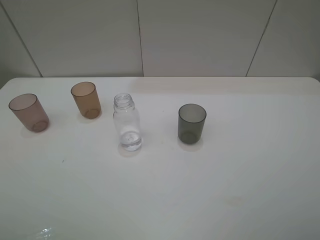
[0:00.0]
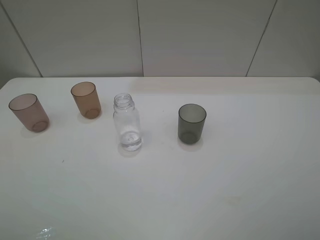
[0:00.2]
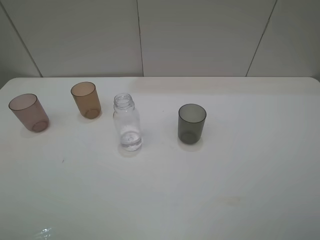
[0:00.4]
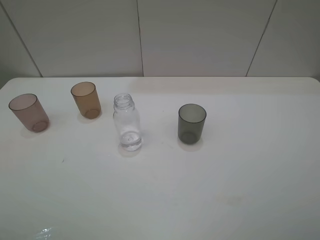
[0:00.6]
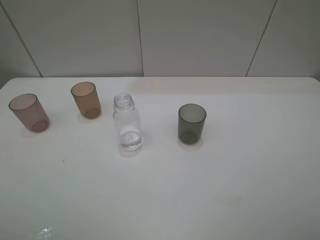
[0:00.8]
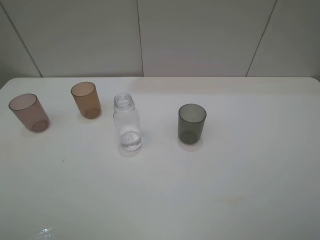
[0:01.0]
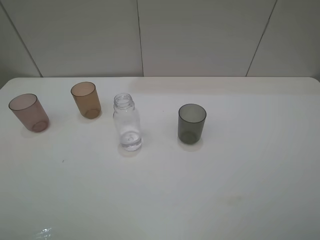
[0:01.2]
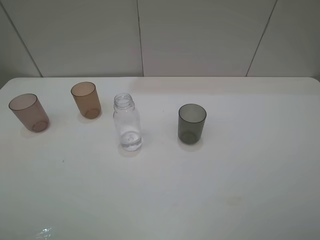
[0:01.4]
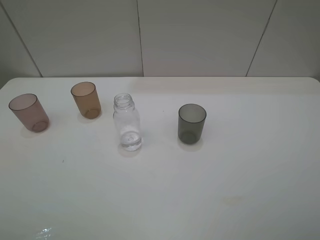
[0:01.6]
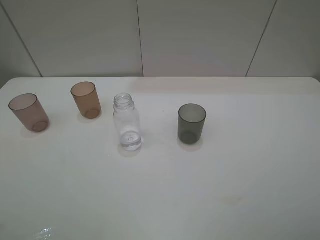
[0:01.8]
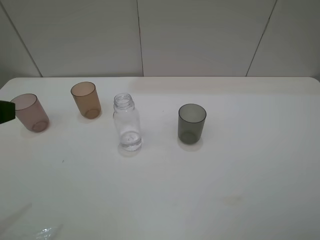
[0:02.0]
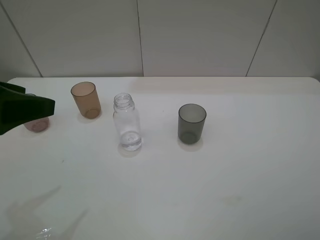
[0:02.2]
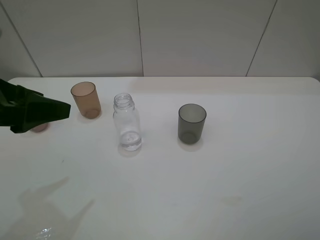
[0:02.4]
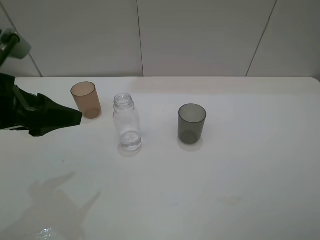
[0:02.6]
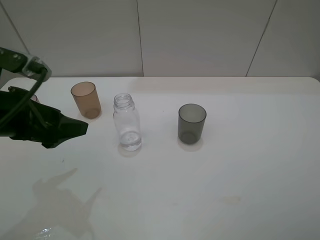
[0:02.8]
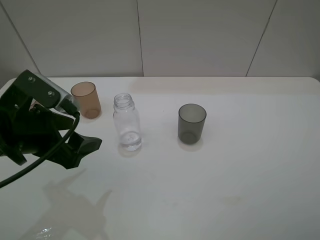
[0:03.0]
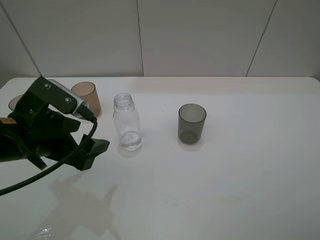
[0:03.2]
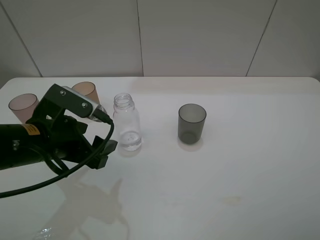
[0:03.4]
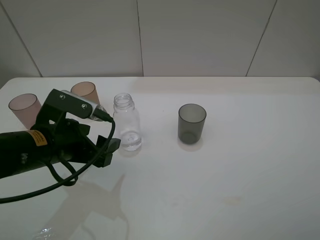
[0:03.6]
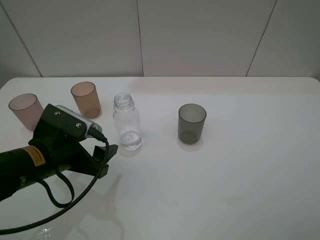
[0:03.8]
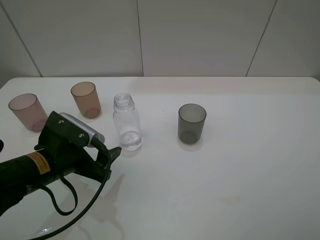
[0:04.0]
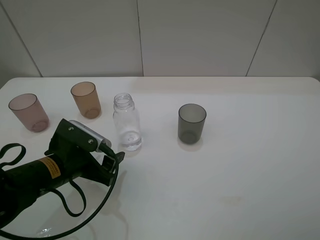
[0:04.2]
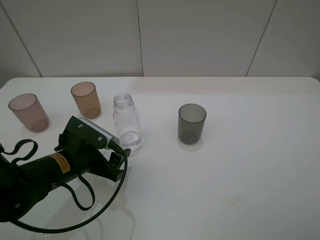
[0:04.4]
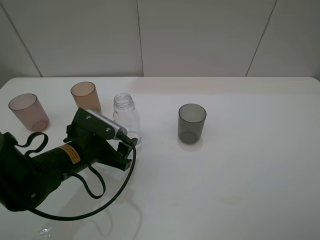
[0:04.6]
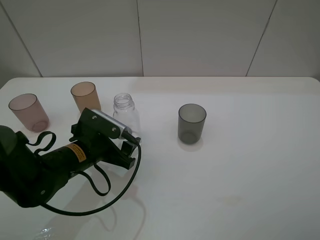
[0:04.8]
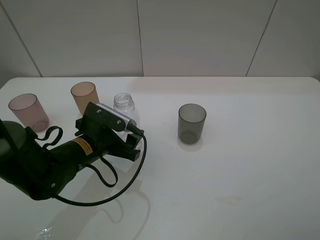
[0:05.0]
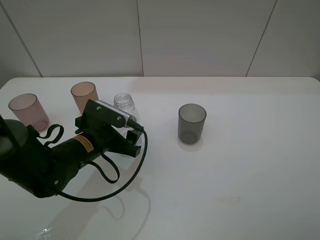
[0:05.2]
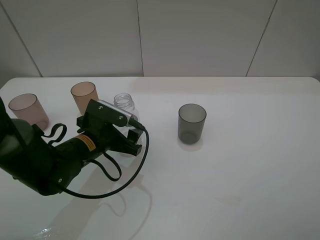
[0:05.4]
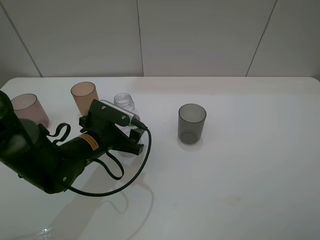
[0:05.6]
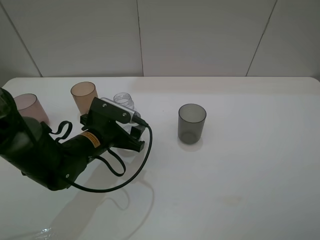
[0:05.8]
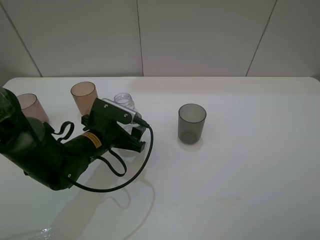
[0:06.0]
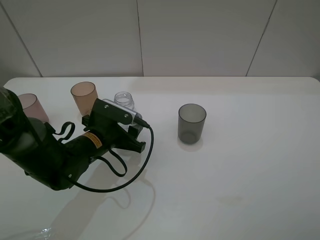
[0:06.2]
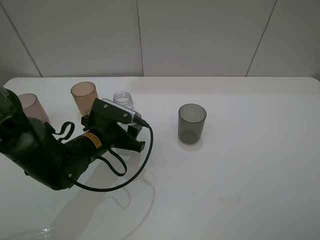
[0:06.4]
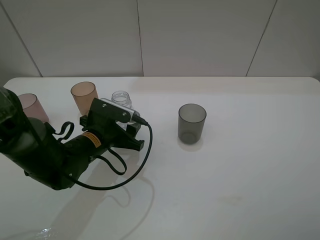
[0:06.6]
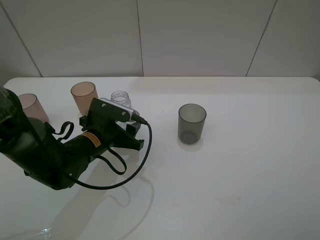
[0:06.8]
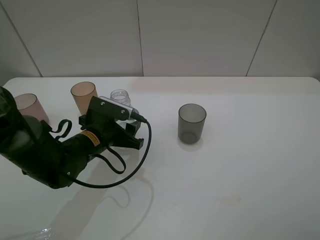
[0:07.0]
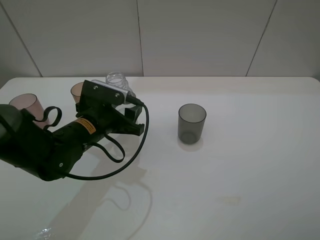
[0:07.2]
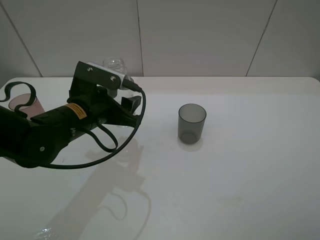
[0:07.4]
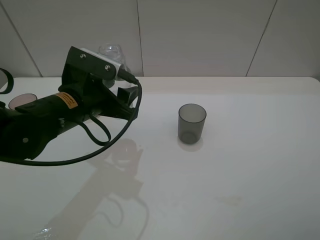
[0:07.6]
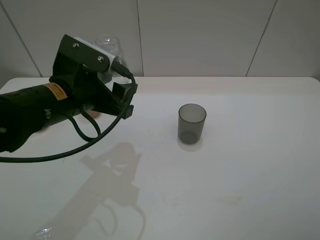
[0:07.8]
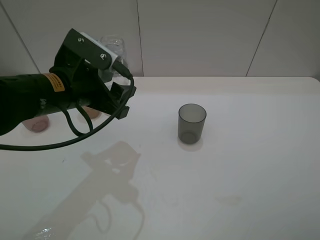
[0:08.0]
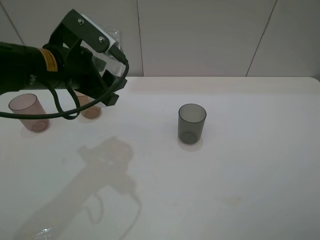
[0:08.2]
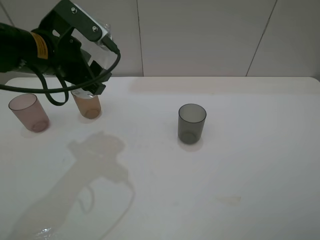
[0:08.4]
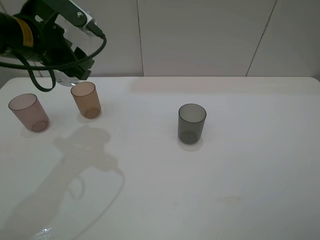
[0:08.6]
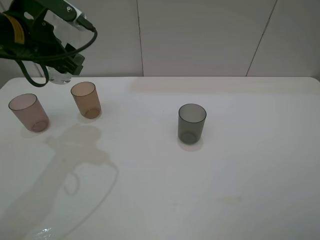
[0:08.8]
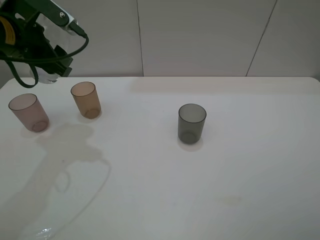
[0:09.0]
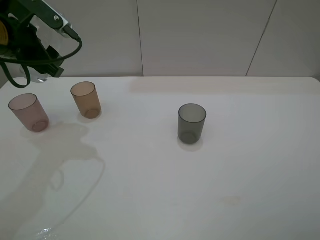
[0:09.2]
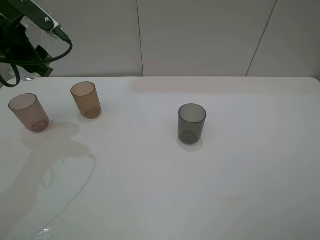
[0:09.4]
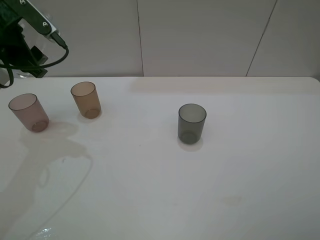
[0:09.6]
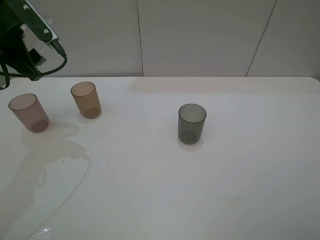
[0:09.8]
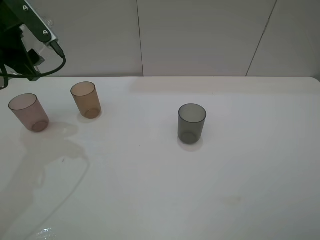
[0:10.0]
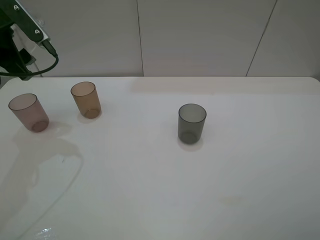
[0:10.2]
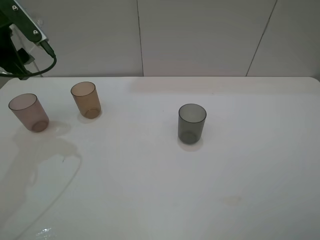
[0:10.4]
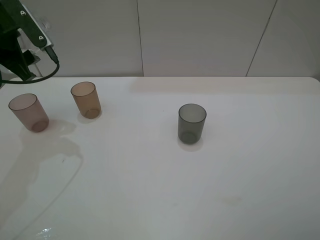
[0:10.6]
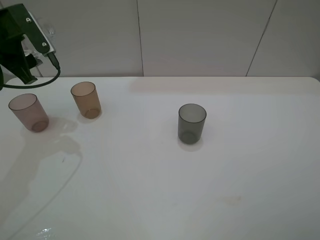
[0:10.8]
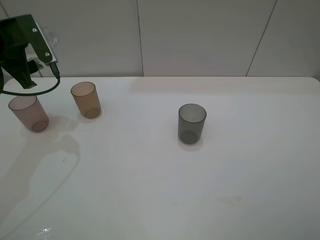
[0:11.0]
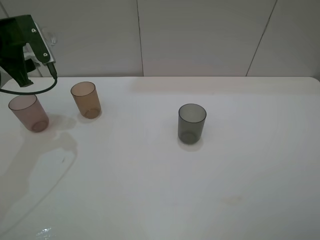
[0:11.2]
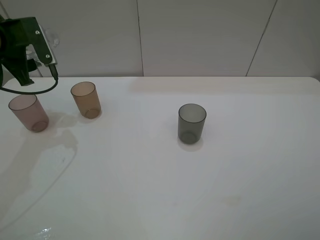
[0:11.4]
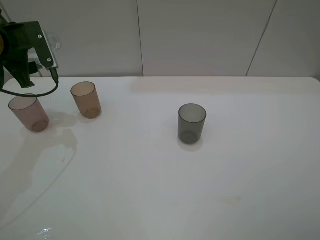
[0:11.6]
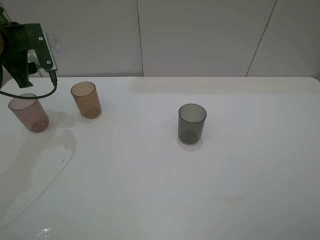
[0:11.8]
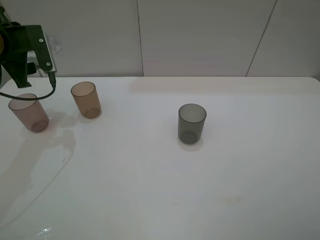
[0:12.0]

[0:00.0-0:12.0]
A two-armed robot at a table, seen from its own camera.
Task of the whole recording: pick up the bottle filled with water and pour water into the middle cup of the three cups.
Step, 0:00.0 to 0:06.0: Grasp the transparent bottle with the left gripper.
0:01.6 to 0:03.0: The left gripper moves forward, downward and to the right, some 20 cm.
0:03.0 to 0:04.4: The left gripper shifts about 10 cm downward.
0:04.4 to 0:06.0: The left gripper goes approximately 5 cm forward.
0:06.0 to 0:07.6: The left gripper travels upward by some 10 cm, and closes.
0:07.6 to 0:09.0: The left gripper heads to the left, upward and forward, covering roughly 15 cm.
0:09.0 to 0:10.4: The left gripper travels to the left by some 5 cm.
0:10.4 to 0:12.0: The left gripper ends up about 5 cm from where it was.

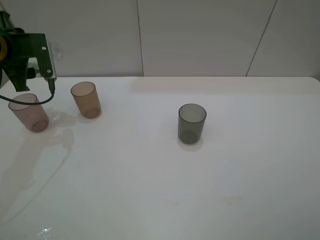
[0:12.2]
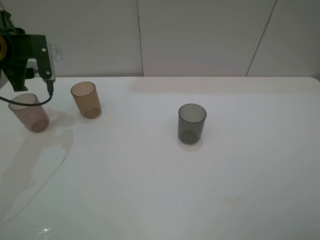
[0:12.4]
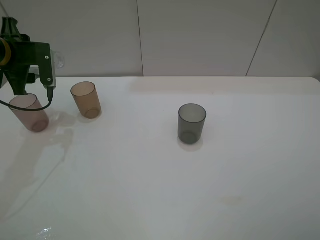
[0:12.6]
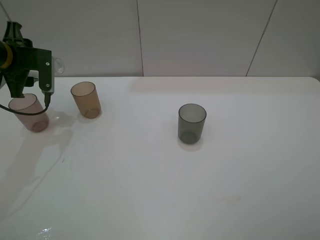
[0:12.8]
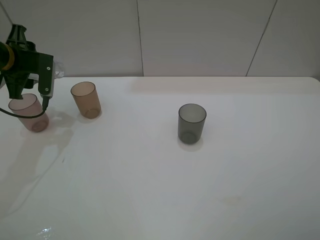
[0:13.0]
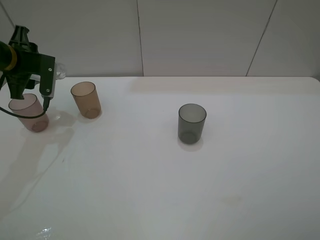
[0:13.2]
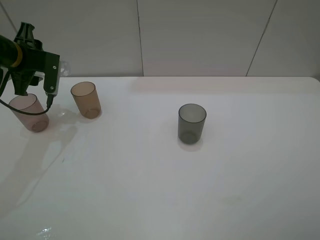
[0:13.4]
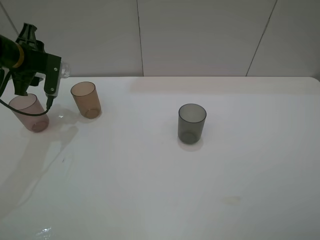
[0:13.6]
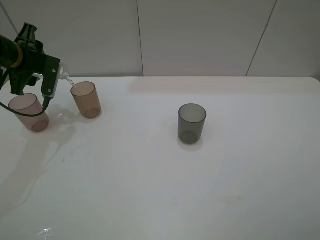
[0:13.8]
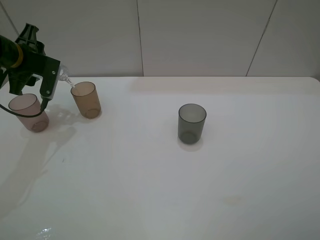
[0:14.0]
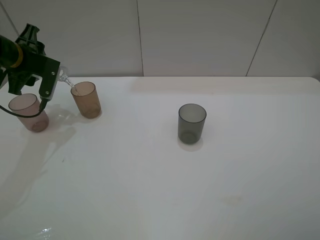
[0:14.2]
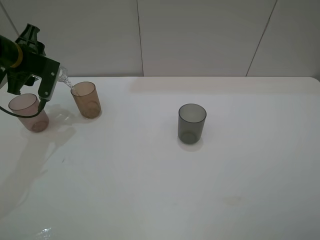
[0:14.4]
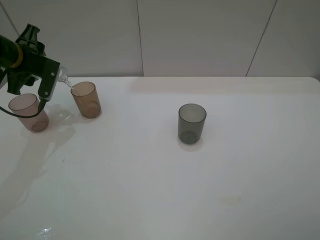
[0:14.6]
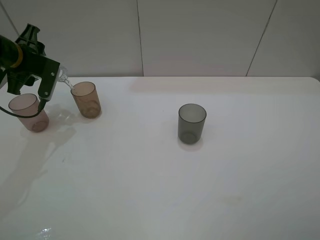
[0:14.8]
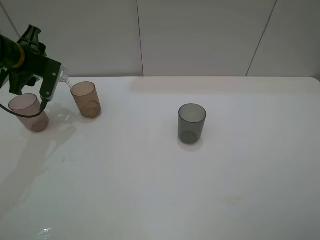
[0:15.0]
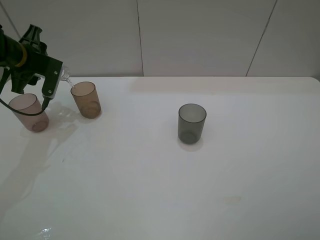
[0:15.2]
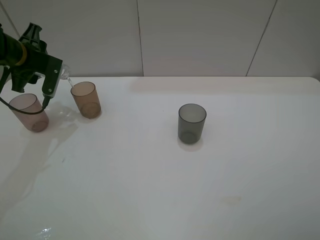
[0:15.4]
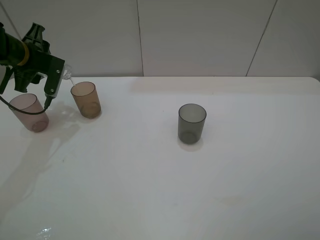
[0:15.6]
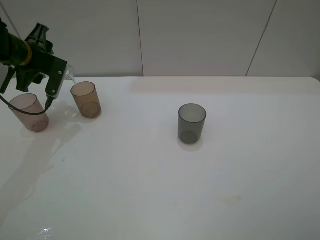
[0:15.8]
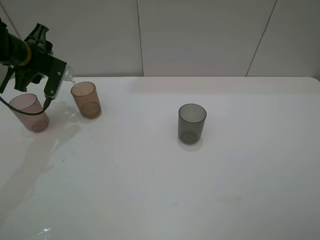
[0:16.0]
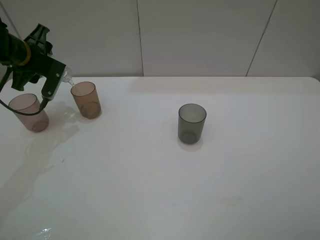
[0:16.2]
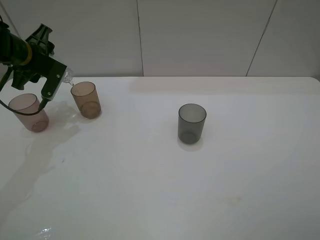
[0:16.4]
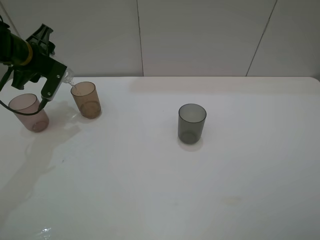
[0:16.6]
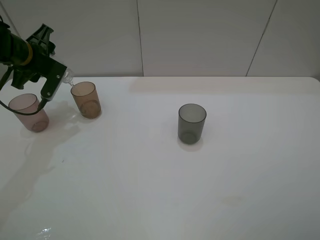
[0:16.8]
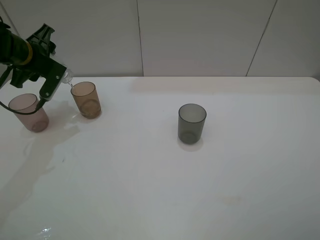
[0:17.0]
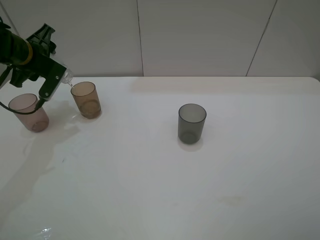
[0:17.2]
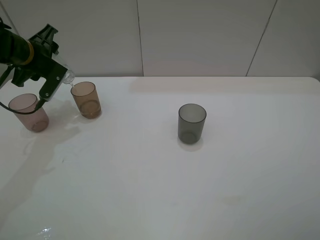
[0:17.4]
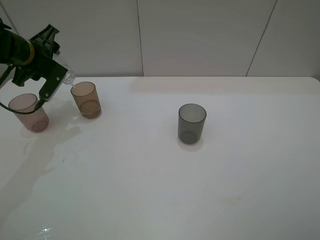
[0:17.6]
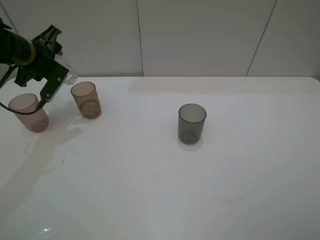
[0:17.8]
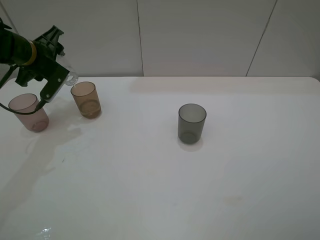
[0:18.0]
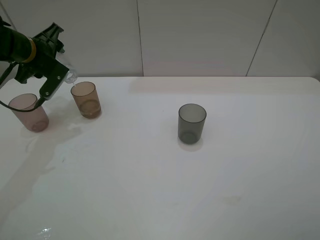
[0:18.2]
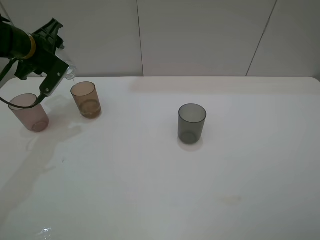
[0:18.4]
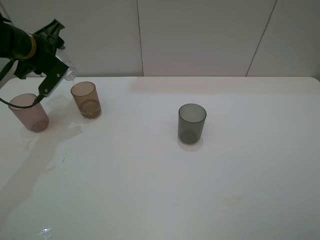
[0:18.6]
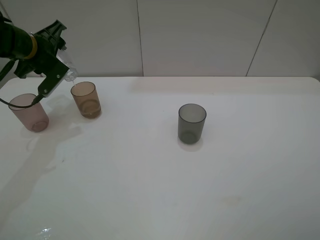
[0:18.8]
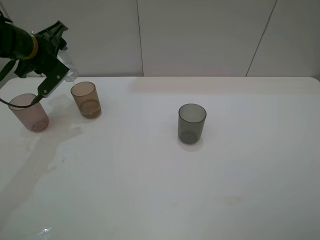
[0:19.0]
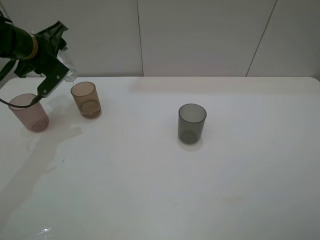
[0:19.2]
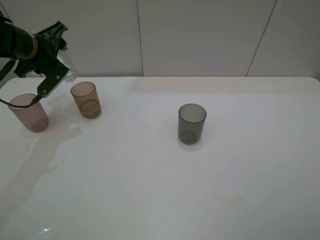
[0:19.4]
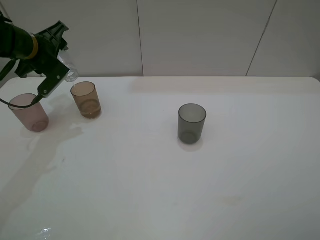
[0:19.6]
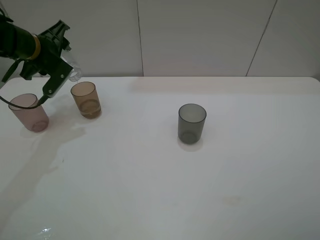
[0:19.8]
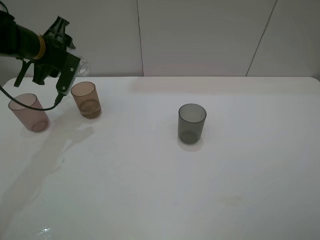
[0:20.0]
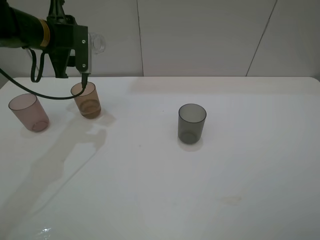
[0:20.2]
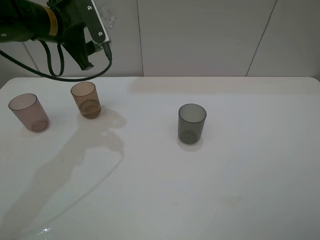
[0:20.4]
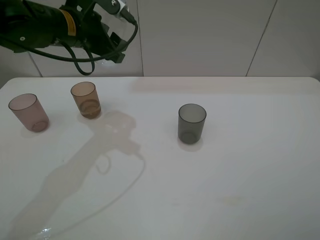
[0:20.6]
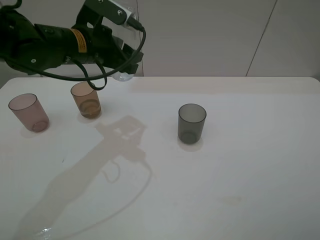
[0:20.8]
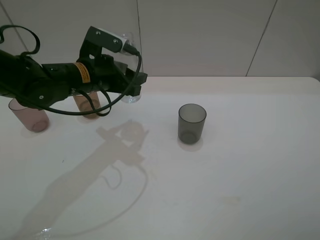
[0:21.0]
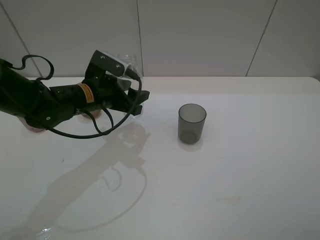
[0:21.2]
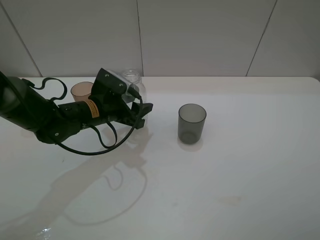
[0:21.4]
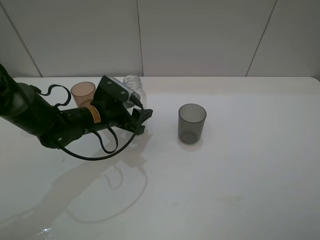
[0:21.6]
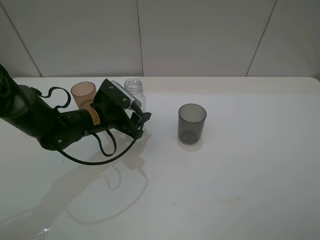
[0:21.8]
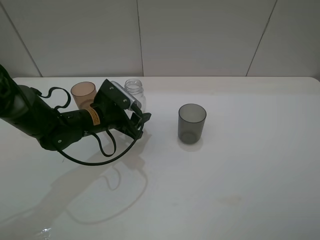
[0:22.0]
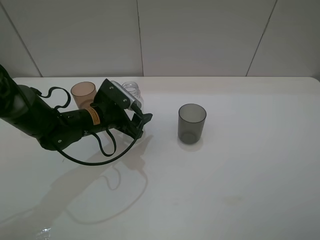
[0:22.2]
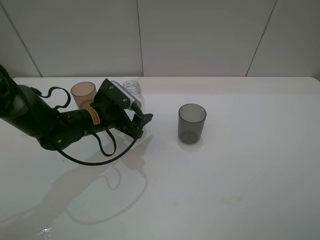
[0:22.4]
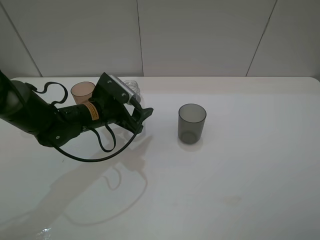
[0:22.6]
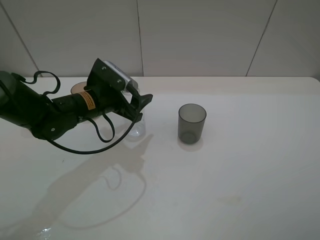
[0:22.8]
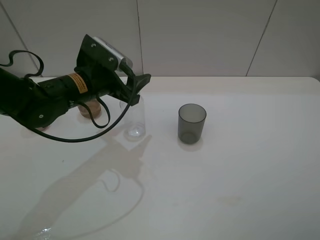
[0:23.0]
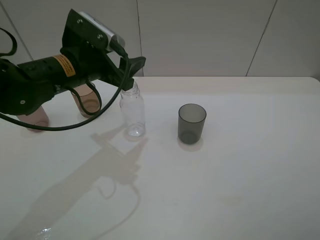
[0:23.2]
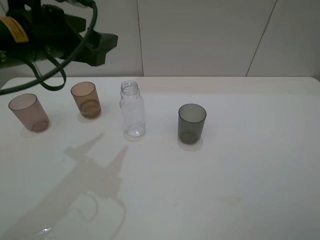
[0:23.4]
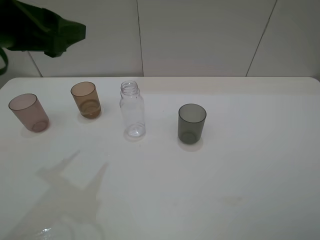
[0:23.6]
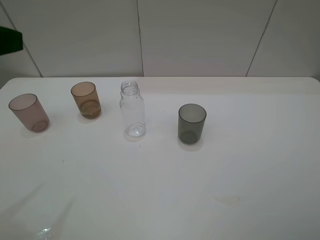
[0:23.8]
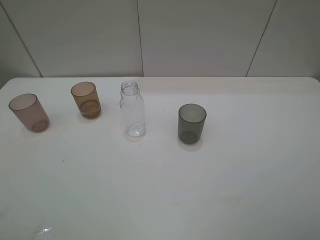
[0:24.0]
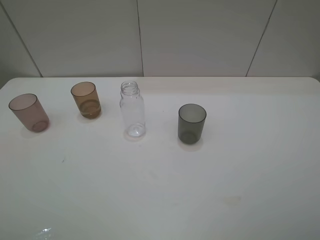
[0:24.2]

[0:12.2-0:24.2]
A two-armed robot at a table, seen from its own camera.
Task of the whole recording: pick up the bottle filled with water and pour water into the middle cup of the three cups.
Step, 0:13.4 to 0:22.8: Place the transparent bottle with the left gripper.
0:13.8 to 0:15.2: Neither gripper changes place.
0:15.2 to 0:16.6: The grippers stay close to where they were, moving slightly.
0:16.6 to 0:19.8: The grippers make only small movements.
0:19.8 to 0:21.2: The left gripper travels to the right, backward and downward by about 15 cm.
0:21.2 to 0:22.6: The left gripper opens.
0:22.6 to 0:24.2: The left gripper is displaced backward, upward and to the left by about 40 cm.
